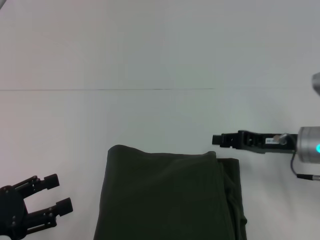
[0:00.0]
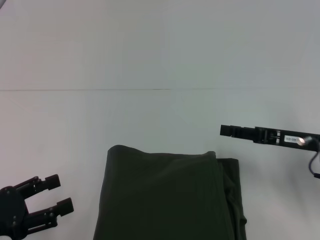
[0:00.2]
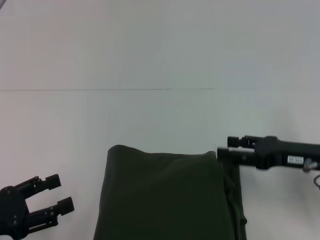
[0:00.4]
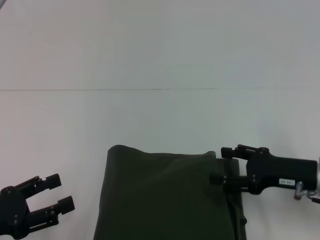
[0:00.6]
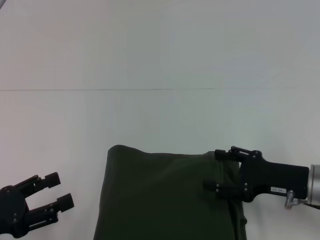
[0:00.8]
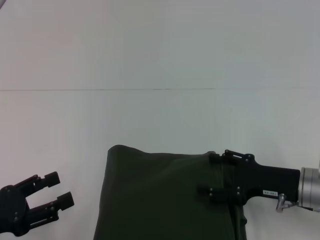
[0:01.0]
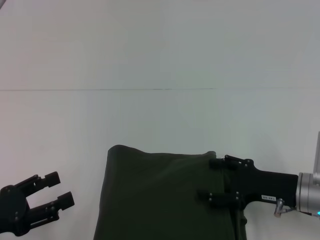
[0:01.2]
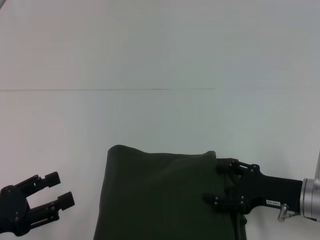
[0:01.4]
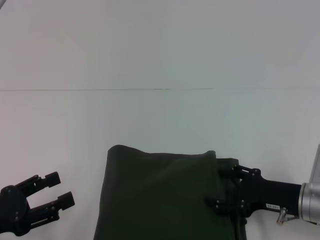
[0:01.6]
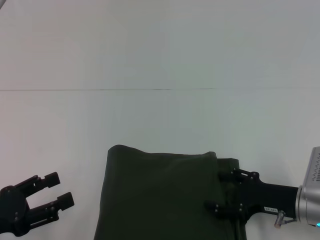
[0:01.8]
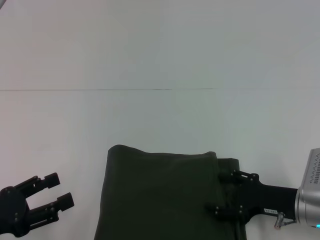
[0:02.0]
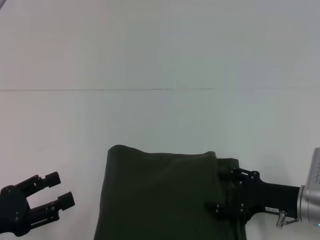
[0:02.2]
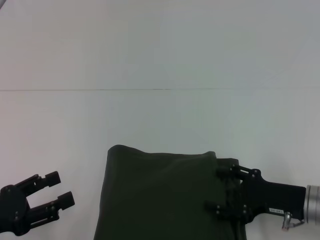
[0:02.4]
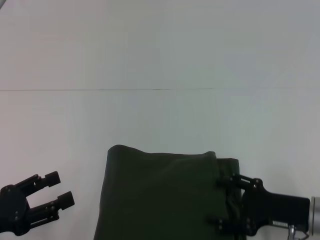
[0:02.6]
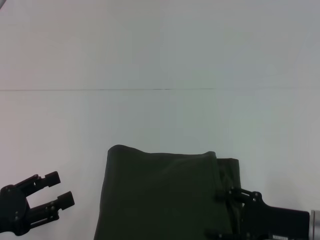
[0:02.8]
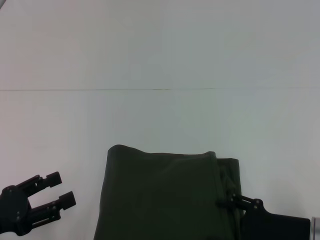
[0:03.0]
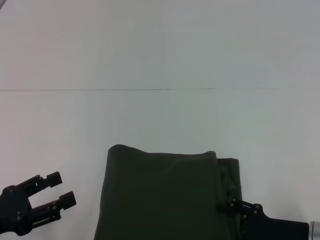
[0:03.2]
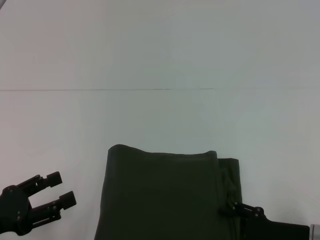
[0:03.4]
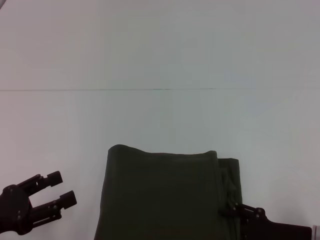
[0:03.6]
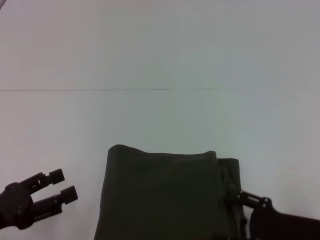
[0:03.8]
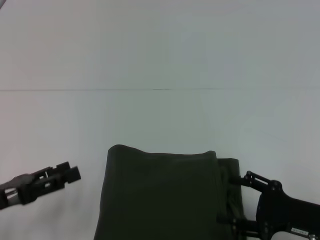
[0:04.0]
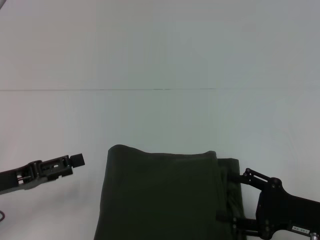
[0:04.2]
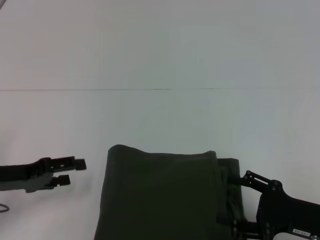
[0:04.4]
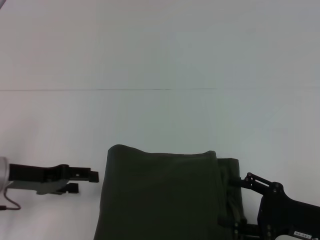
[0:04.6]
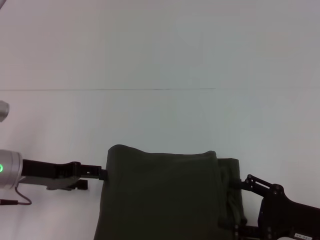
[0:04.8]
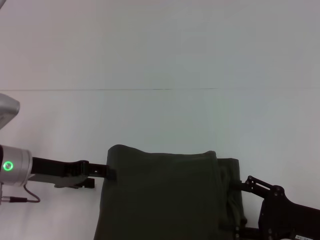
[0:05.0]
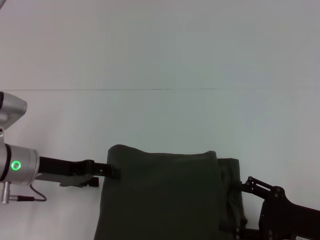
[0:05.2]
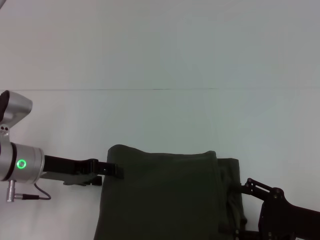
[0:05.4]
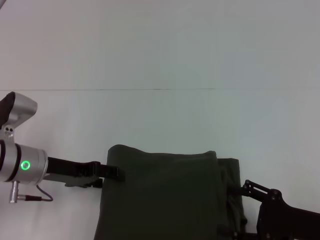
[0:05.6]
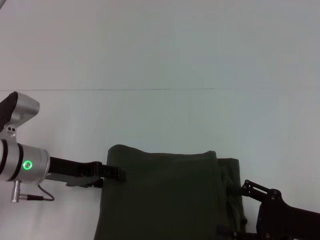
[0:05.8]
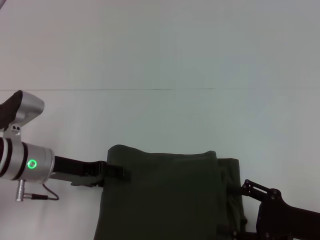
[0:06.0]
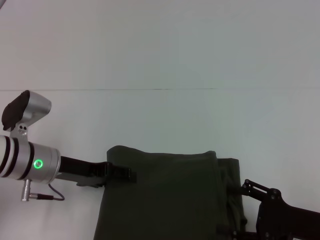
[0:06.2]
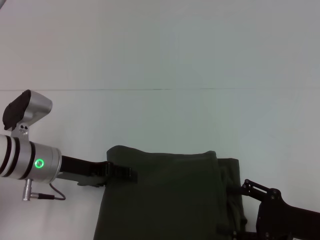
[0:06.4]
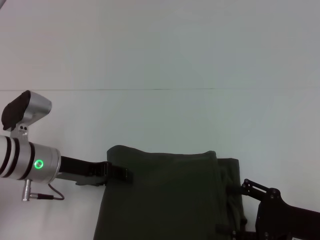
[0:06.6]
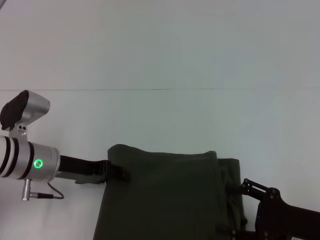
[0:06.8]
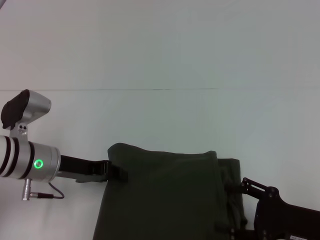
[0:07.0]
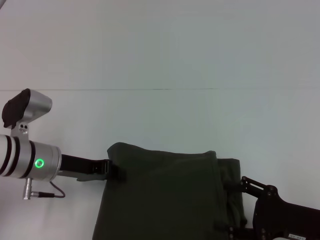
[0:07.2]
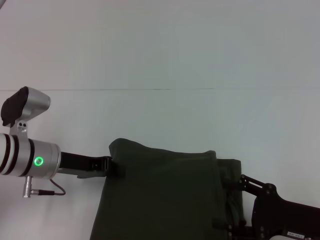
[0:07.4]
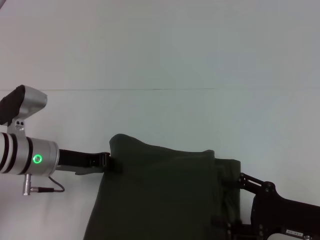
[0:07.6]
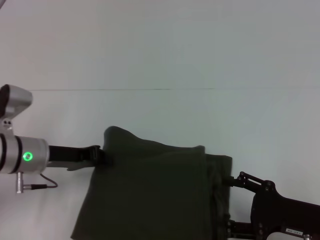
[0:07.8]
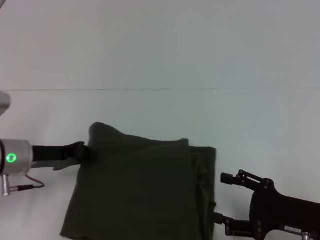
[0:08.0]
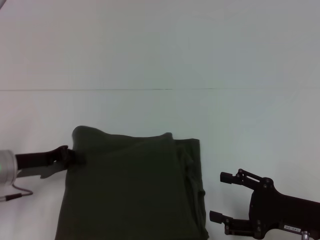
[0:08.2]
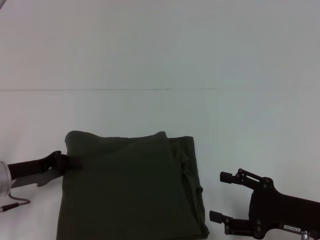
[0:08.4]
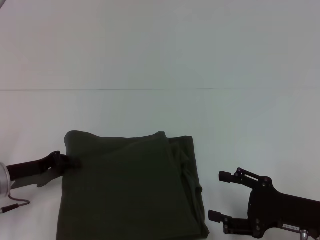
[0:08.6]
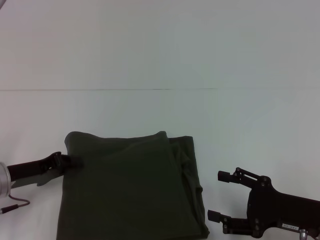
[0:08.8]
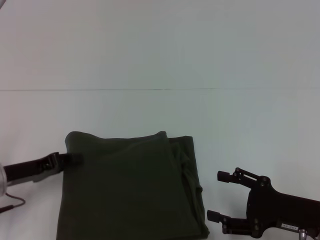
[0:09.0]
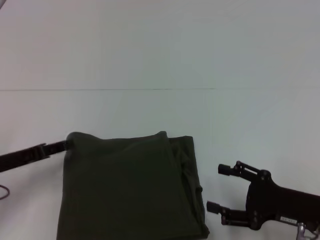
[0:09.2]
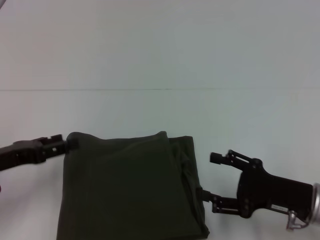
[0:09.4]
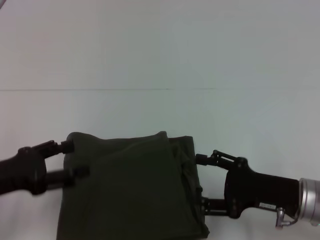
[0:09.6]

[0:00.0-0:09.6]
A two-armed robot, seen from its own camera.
0:00.0 to 0:01.6: The right gripper heads backward and downward, covering roughly 10 cm, and opens.
0:01.6 to 0:03.2: The right gripper moves some 5 cm.
0:03.2 to 0:04.8: The left gripper heads forward, covering roughly 15 cm.
0:04.8 to 0:06.4: The left gripper heads to the right, covering approximately 5 cm.
0:06.4 to 0:08.0: The left gripper closes its fingers.
0:08.0 to 0:09.6: The left gripper travels backward by some 10 cm, and opens.

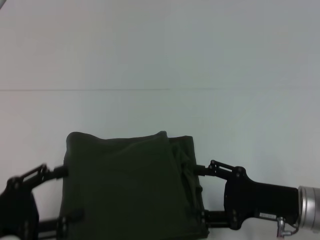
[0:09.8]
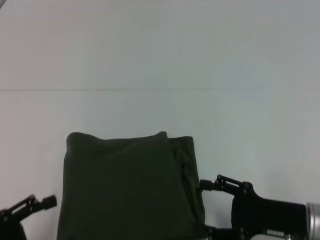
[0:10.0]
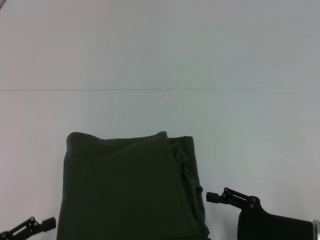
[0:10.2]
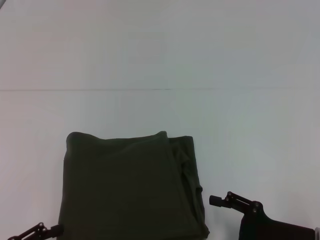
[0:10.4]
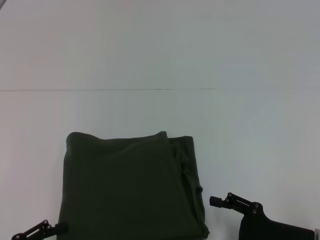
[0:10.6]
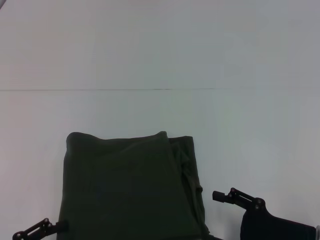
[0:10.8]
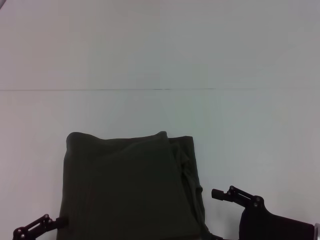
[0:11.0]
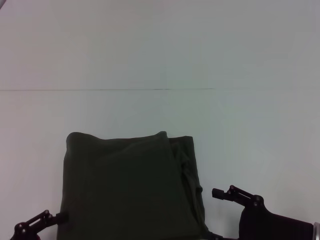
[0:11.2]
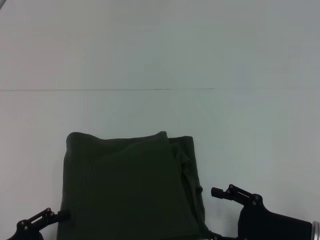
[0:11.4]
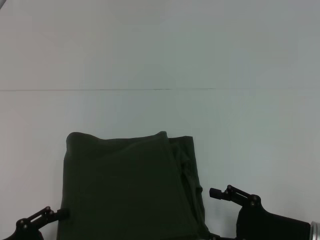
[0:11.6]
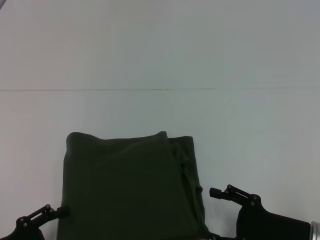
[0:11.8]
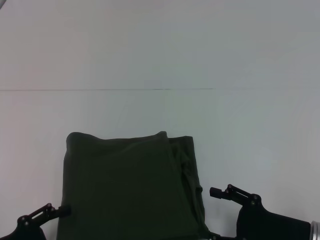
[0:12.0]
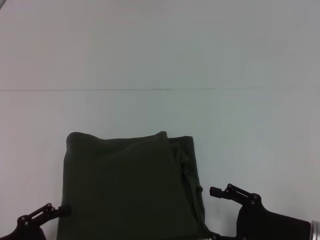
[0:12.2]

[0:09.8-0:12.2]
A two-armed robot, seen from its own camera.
0:09.8 to 0:11.0: The right gripper moves about 5 cm; the left gripper heads downward, covering some 5 cm.
0:11.0 to 0:12.2: The grippers stay close to where they were, moving slightly.
